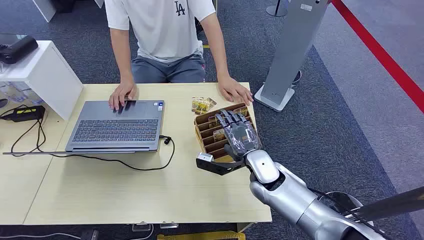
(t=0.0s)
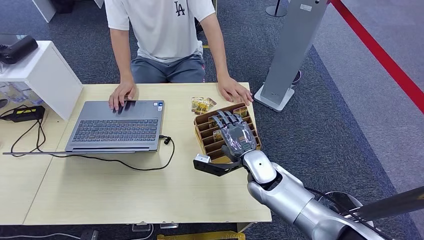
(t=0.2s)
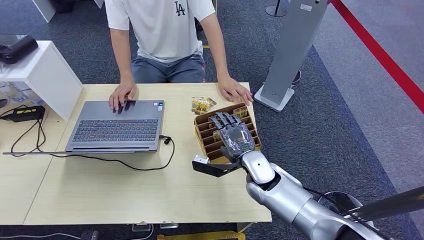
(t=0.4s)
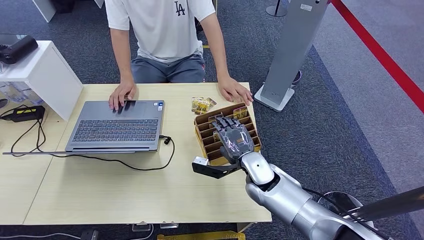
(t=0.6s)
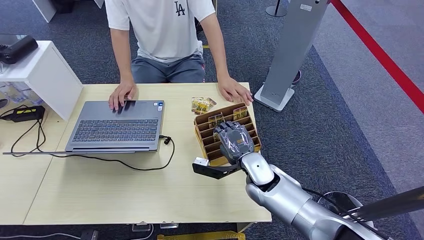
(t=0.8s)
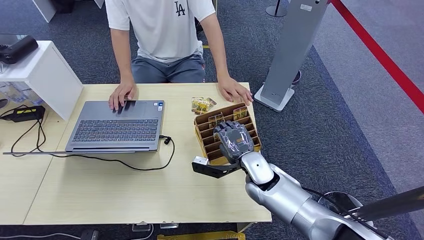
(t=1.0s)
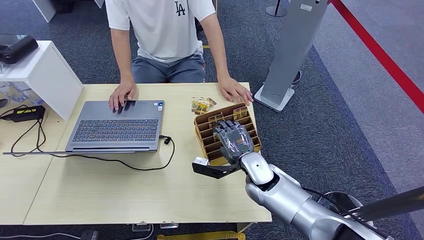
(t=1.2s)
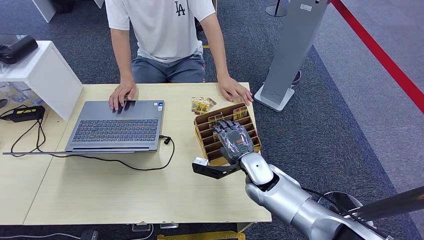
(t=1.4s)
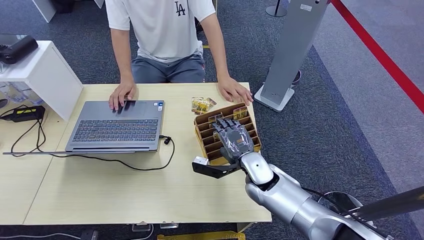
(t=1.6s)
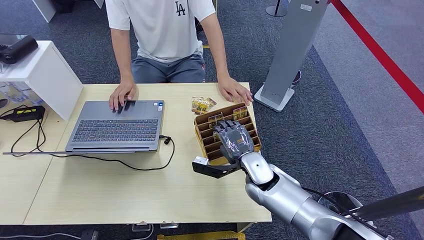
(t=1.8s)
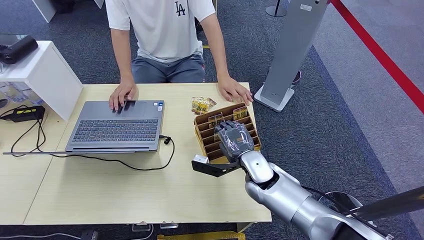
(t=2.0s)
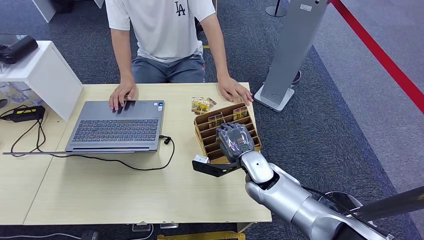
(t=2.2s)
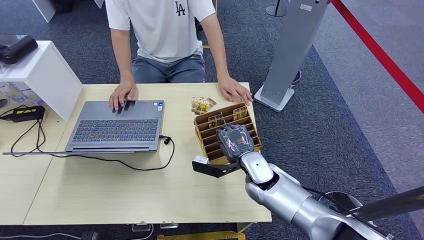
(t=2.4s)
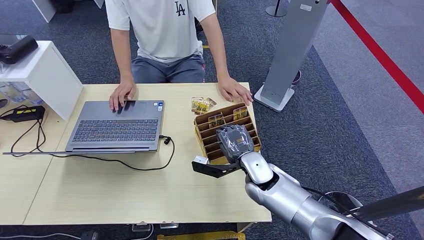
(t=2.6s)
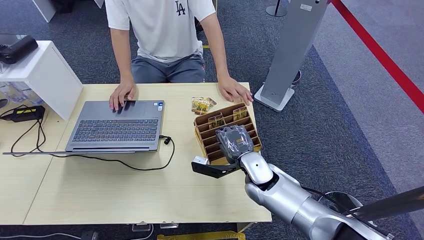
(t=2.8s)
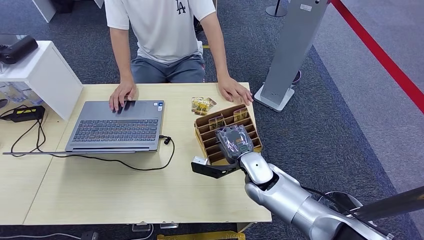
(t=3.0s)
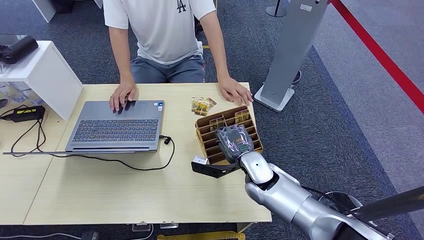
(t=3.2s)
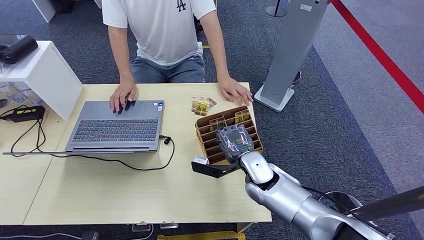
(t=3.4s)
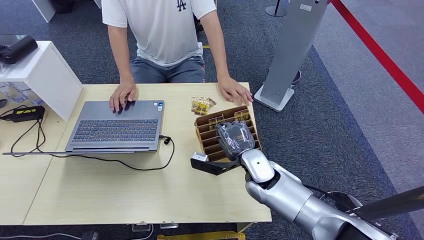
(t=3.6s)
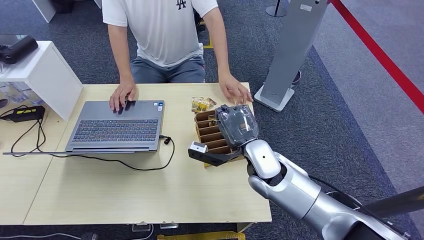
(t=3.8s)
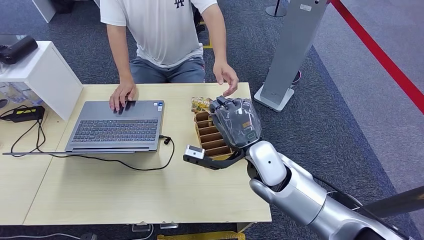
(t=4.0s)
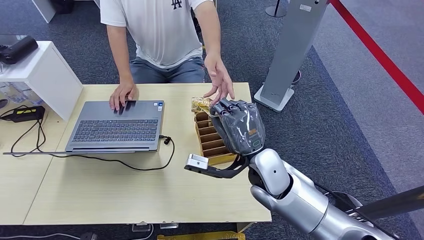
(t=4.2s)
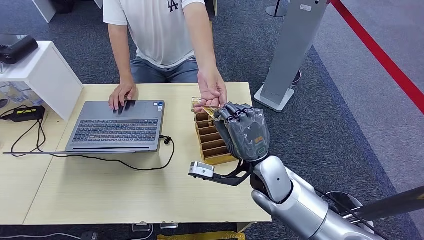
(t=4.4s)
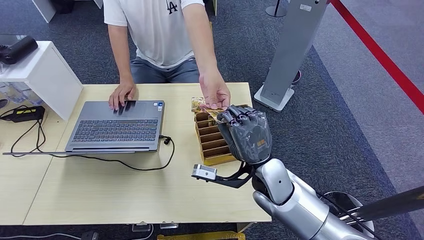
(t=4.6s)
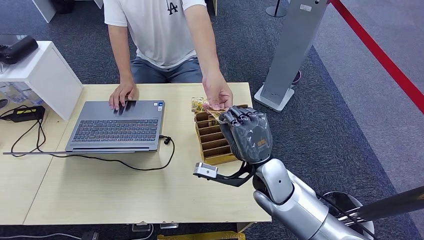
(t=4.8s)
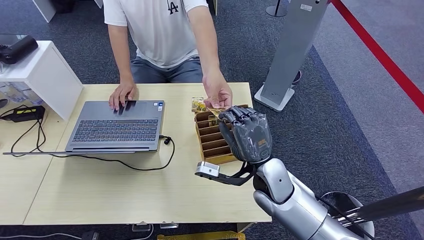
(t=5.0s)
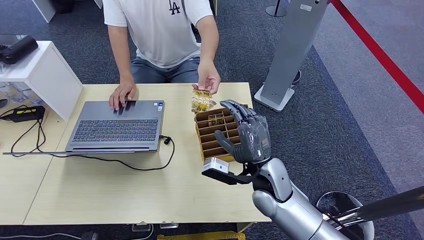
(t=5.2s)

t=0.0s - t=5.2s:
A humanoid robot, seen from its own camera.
Step, t=0.0s - t=4.0s: Pick up the key card from the card box.
Step, t=4.4s - t=5.2s: Hand the key card to the target.
t=1.8s - t=3.4s: Neither hand changes place.

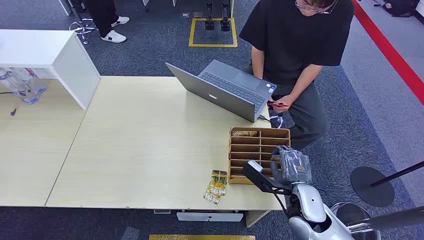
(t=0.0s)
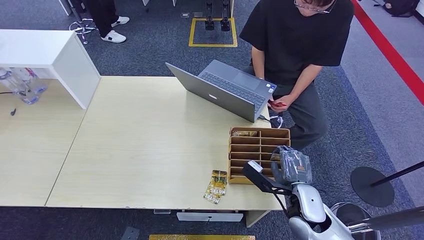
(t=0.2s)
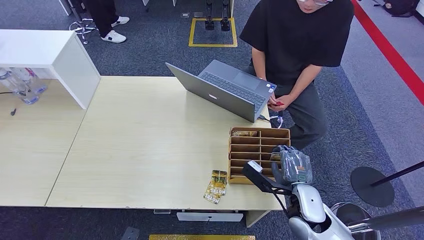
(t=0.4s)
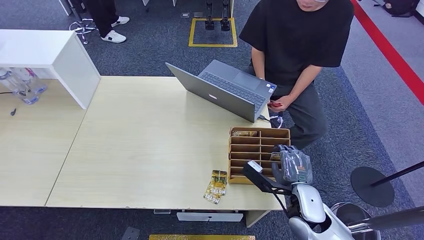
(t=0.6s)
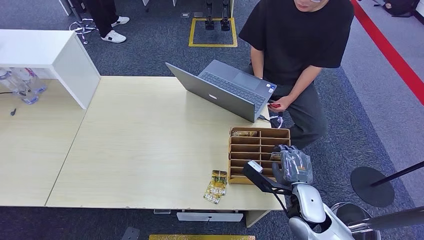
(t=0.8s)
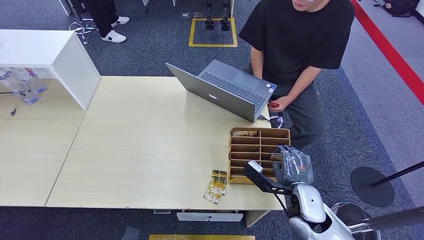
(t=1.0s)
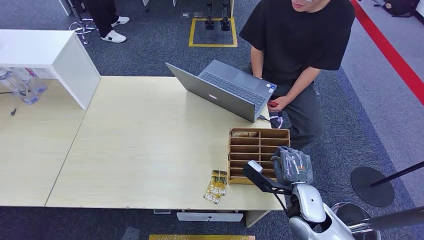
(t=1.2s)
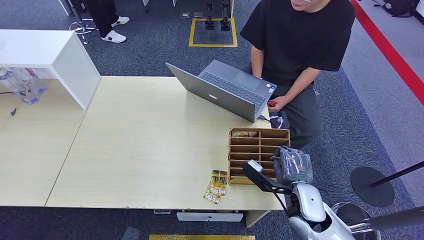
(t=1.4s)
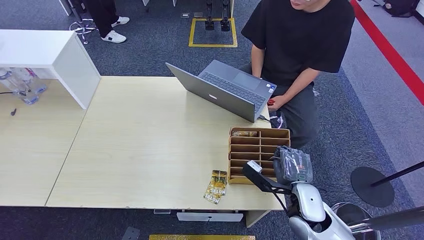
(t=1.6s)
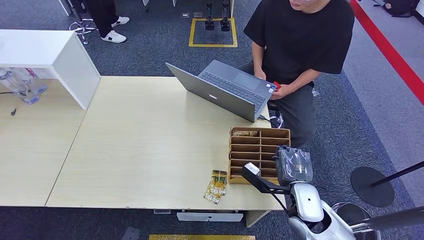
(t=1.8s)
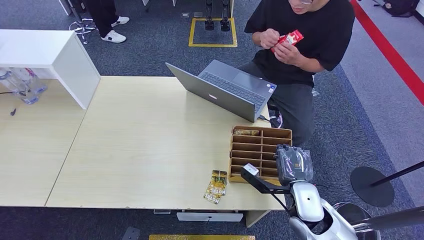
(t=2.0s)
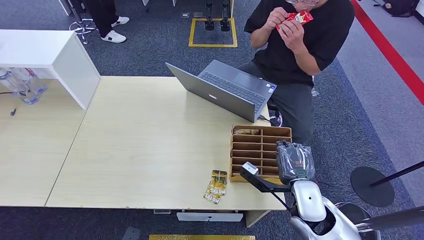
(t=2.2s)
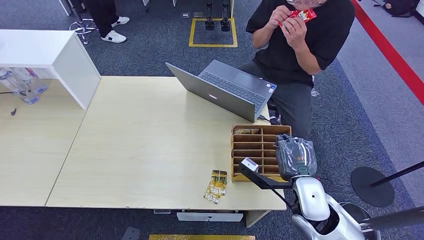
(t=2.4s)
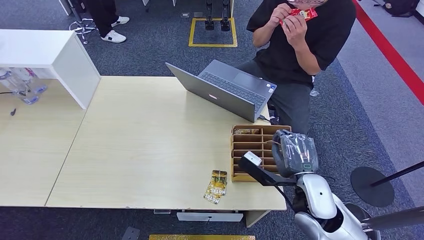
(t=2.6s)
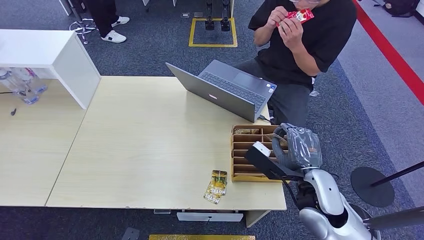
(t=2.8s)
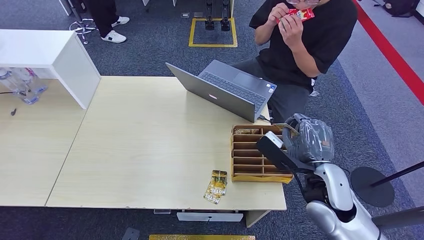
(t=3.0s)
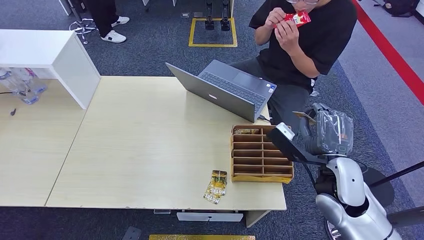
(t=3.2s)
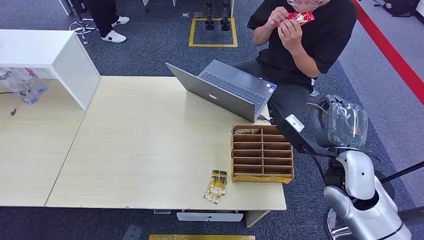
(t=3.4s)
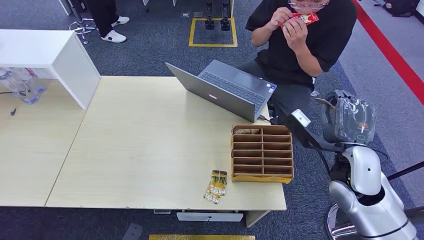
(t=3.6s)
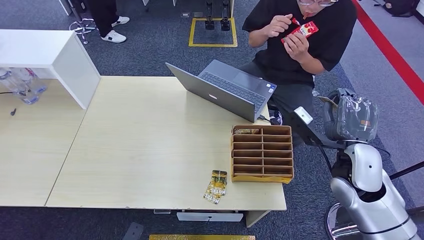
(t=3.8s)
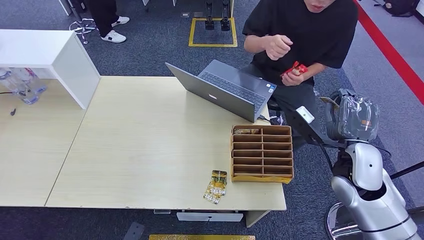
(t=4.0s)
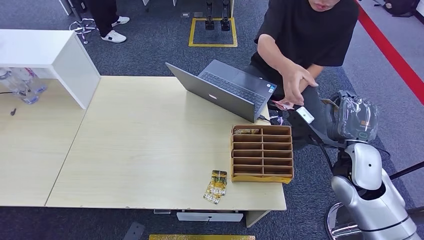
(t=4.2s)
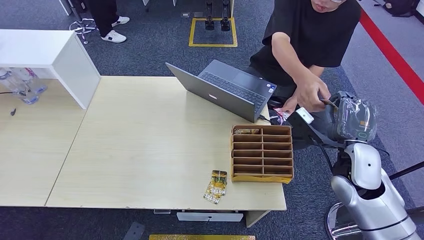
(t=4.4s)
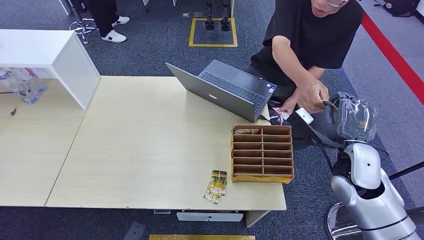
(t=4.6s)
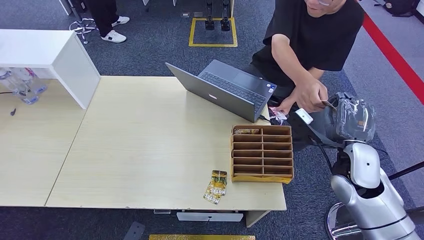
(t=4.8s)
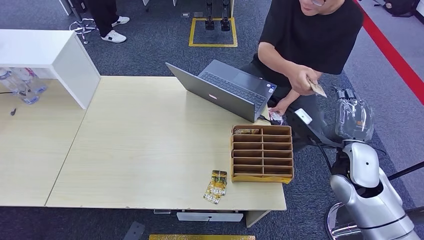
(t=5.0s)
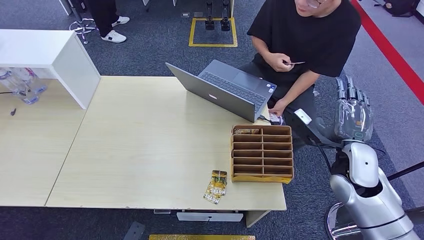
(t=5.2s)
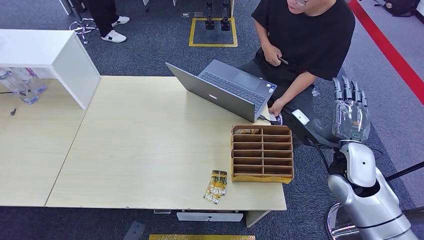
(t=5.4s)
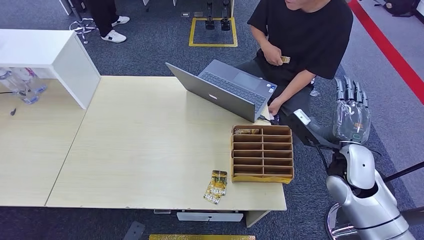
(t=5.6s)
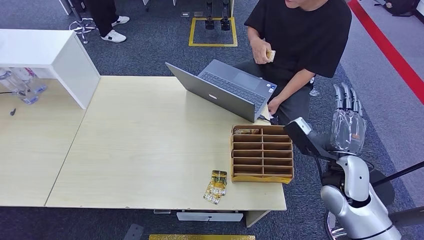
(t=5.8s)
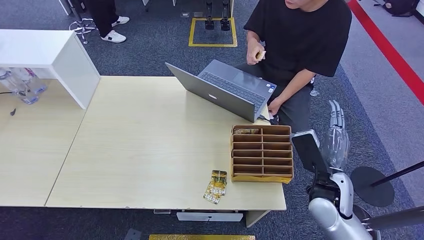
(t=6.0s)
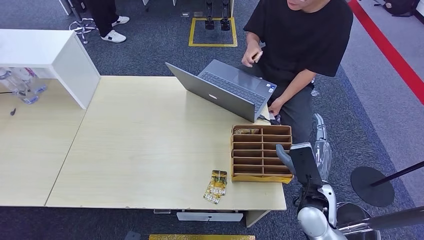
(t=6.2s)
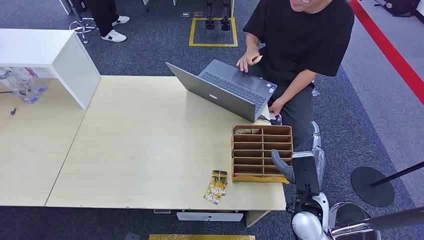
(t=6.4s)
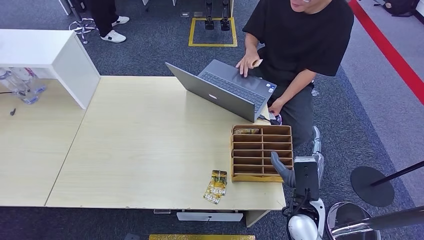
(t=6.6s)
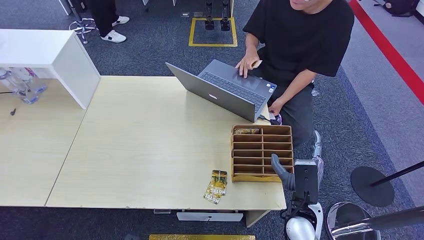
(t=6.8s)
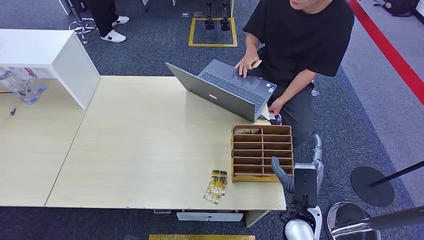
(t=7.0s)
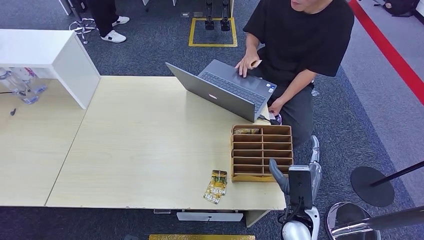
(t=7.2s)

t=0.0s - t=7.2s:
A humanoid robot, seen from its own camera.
Step, t=0.0s - t=2.8s: Pick up the key card from the card box.
Step, t=3.2s - t=7.2s: Hand the key card to the target.
t=1.4s - t=2.8s: The right hand shifts about 10 cm upward.
t=2.8s - t=4.4s: The right hand shifts roughly 10 cm to the right.
t=4.4s - t=5.8s: There are only small adjustments of the hands.
t=5.8s - t=7.2s: The right hand heads to the left, downward and backward, covering approximately 15 cm.
